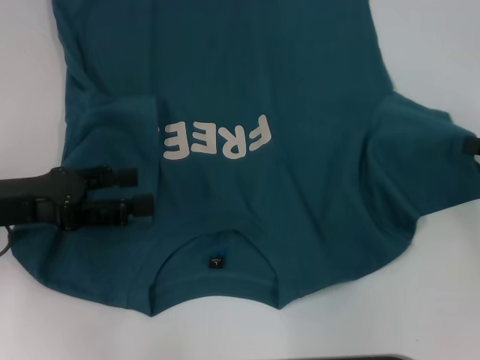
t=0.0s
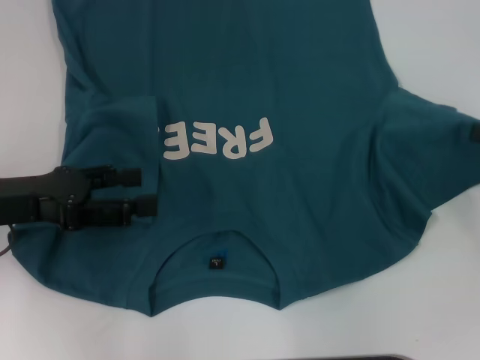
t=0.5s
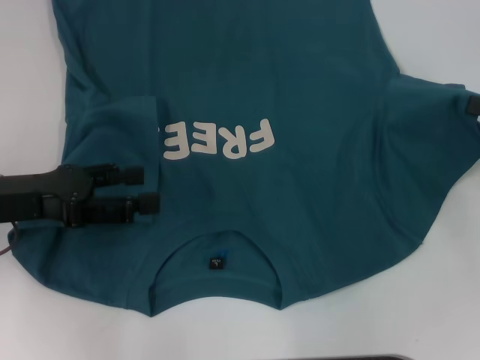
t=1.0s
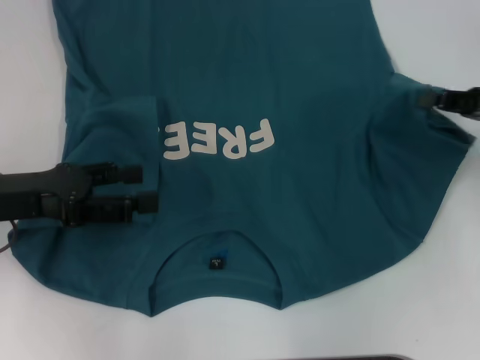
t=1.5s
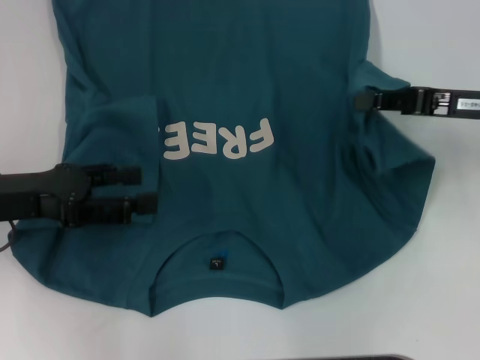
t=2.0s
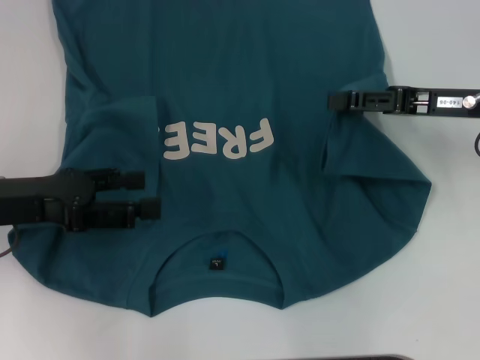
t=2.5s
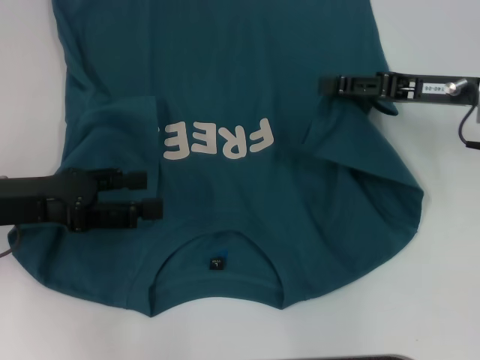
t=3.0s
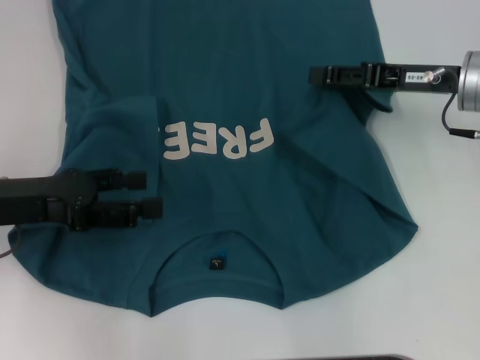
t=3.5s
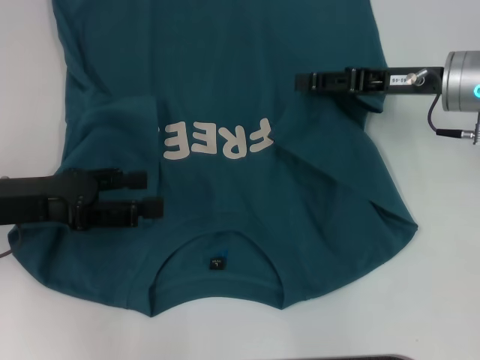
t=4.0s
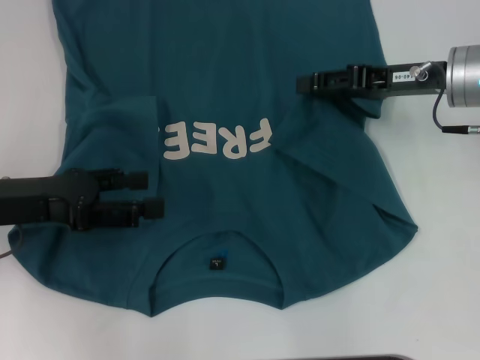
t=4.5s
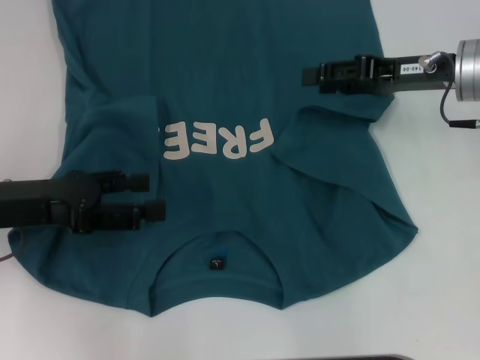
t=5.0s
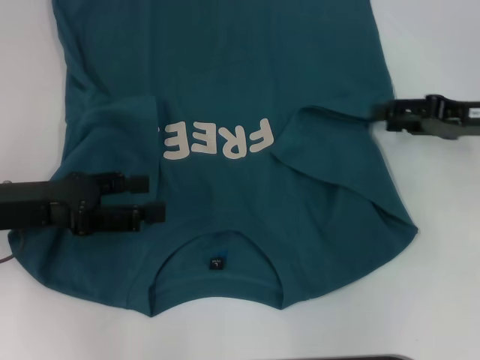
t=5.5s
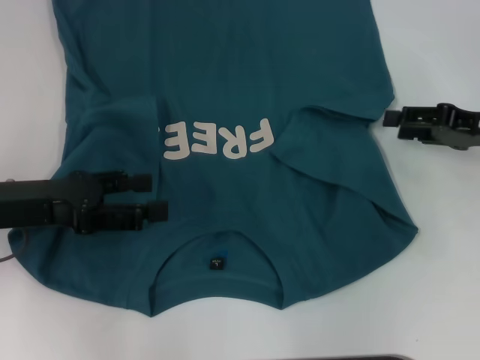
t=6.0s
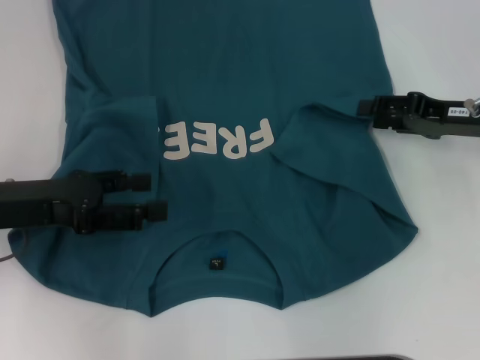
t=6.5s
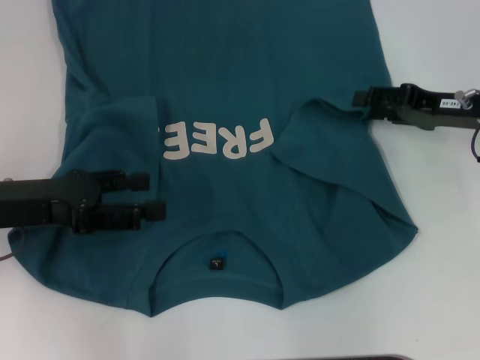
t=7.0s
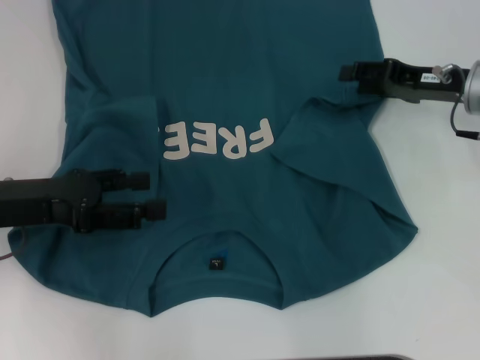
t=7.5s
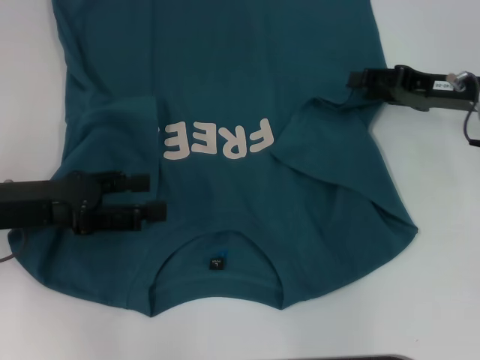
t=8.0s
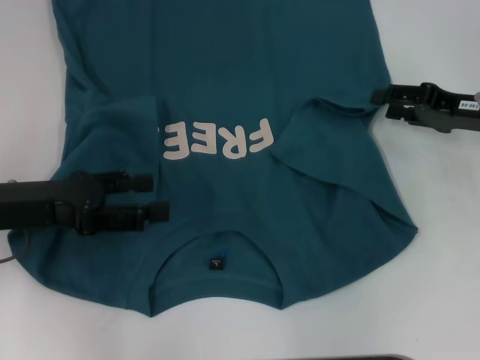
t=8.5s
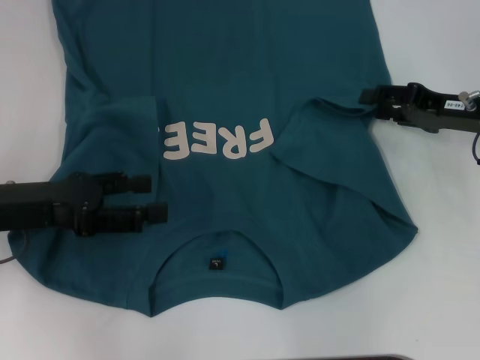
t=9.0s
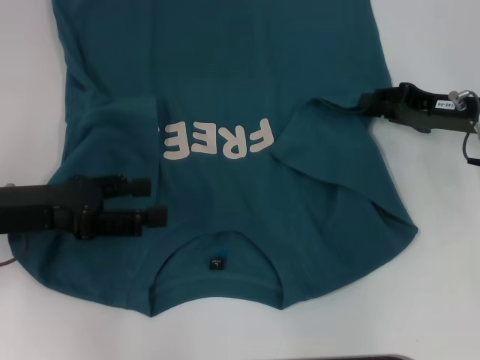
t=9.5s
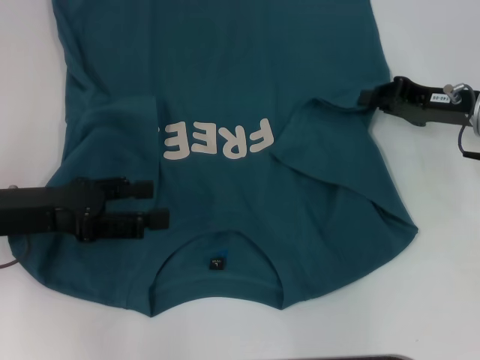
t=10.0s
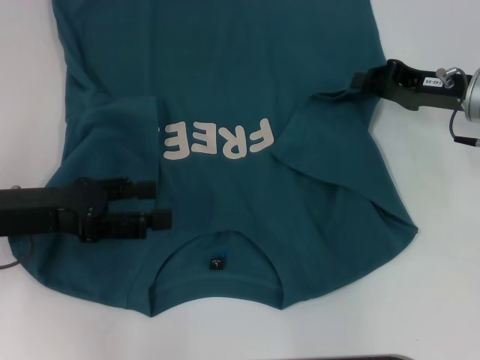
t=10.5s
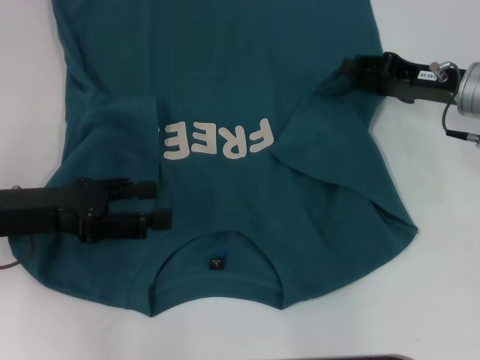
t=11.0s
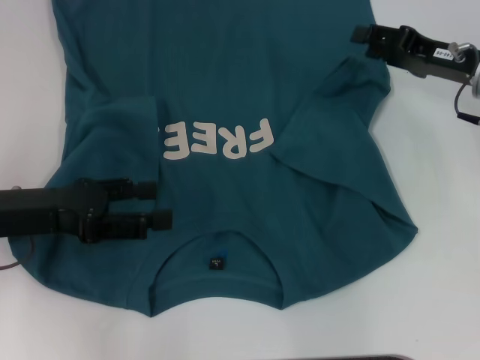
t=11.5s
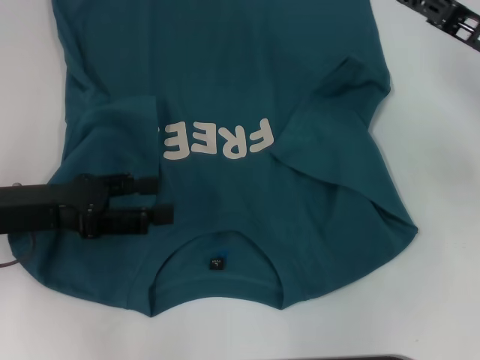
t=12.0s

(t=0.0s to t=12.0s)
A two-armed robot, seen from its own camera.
Step, t=0.0s - t=11.5s: Fold the bottom right sleeve to the right.
t=0.0s - t=2.0s: The right gripper travels to the left and forward by roughly 10 cm.
t=2.0s - t=4.0s: The right gripper moves about 5 cm, and opens.
t=4.0s - t=6.0s: The right gripper travels to the right by about 10 cm.
t=6.0s - t=8.0s: The right gripper moves about 5 cm.
t=8.0s - t=10.0s: The right gripper closes up.
t=10.0s - t=12.0s: The right gripper opens up.

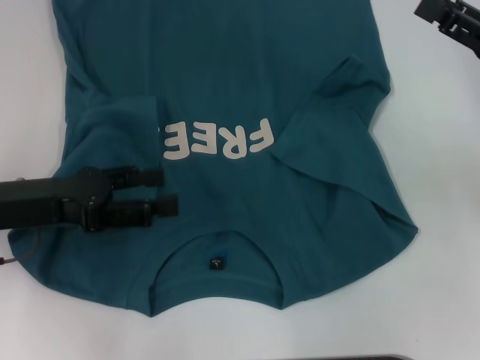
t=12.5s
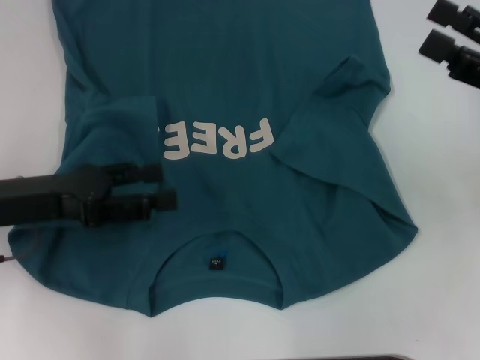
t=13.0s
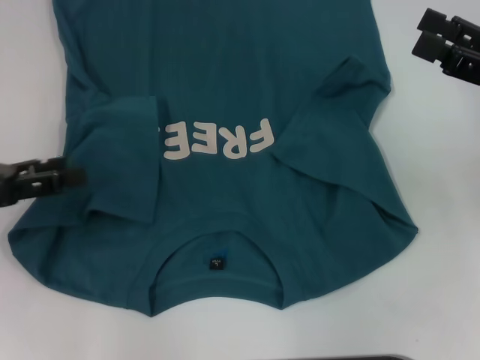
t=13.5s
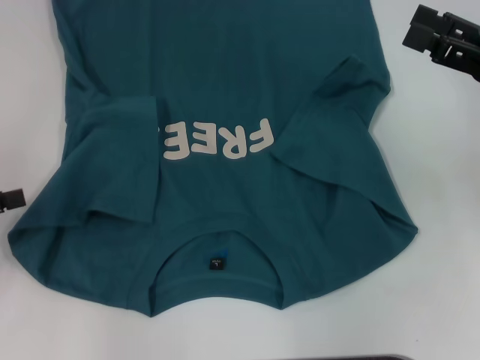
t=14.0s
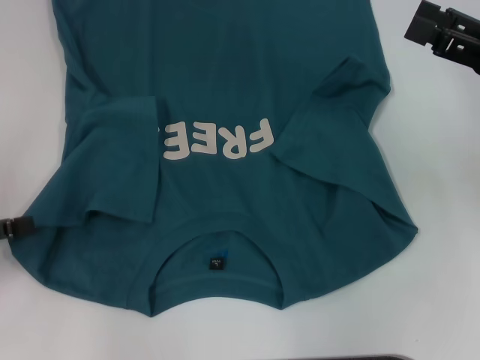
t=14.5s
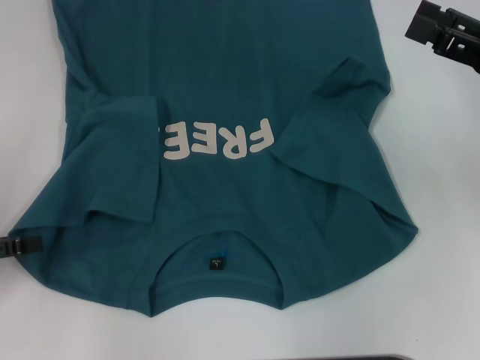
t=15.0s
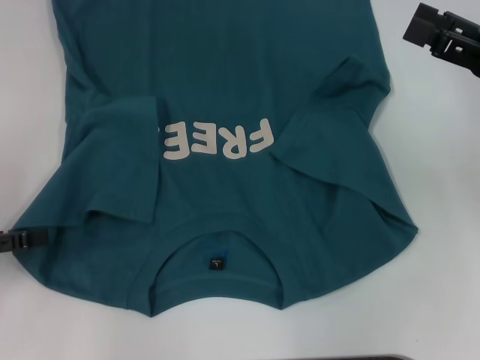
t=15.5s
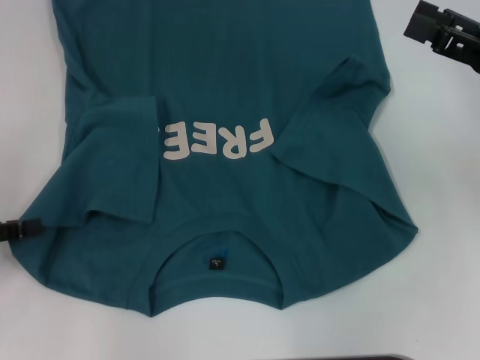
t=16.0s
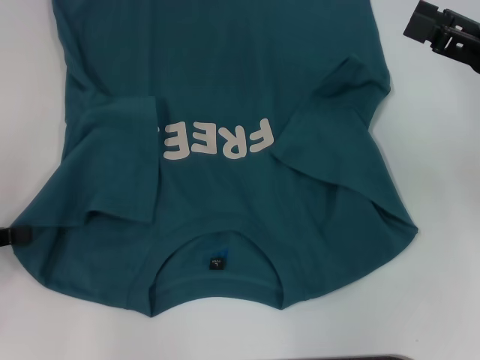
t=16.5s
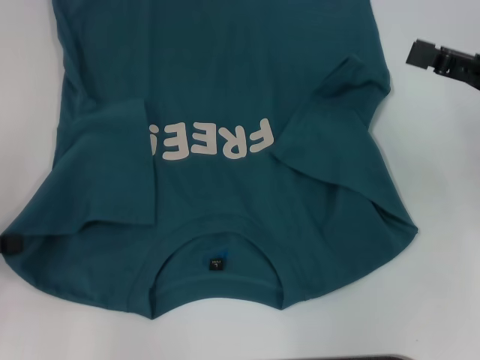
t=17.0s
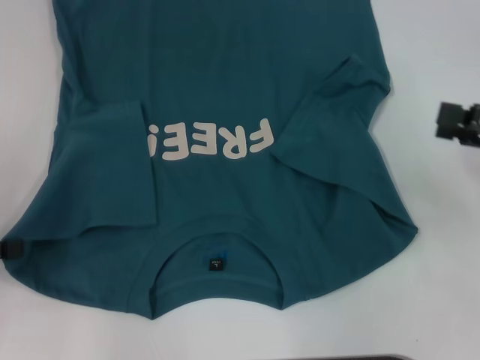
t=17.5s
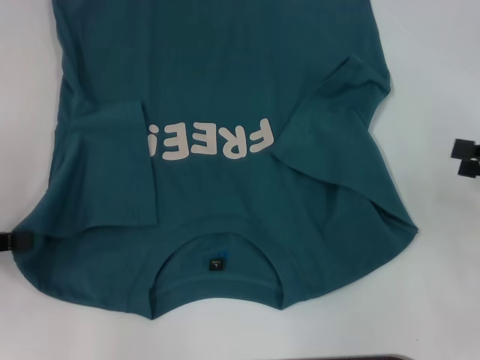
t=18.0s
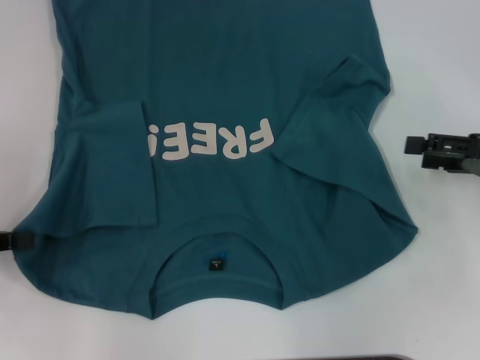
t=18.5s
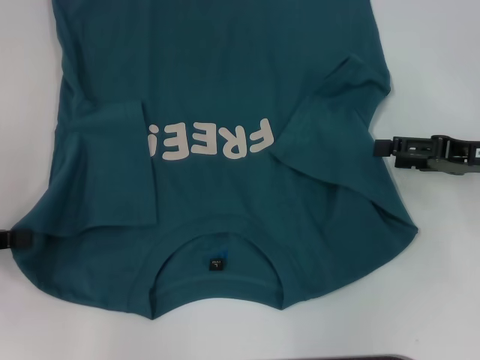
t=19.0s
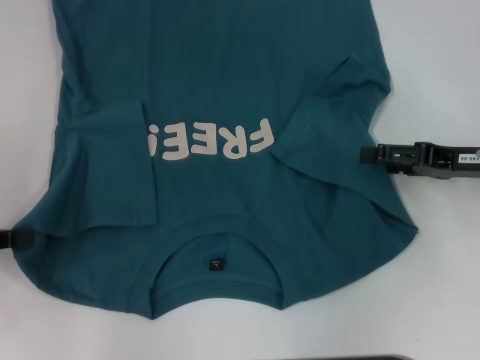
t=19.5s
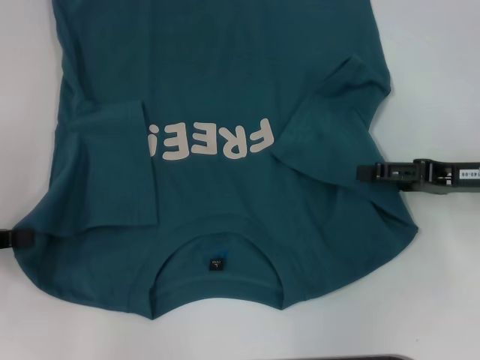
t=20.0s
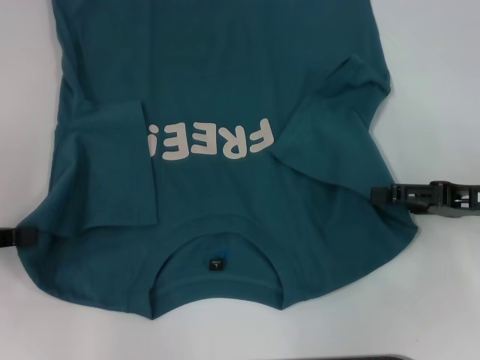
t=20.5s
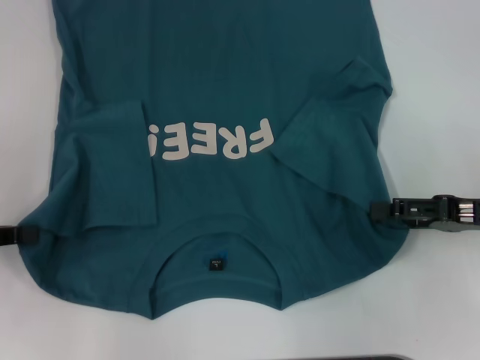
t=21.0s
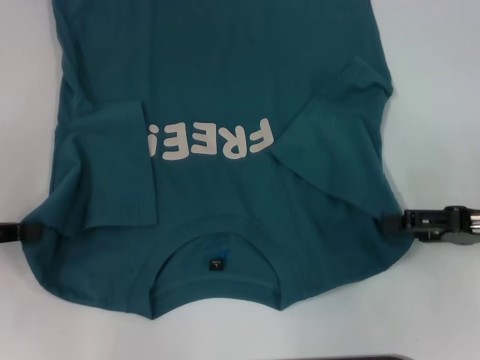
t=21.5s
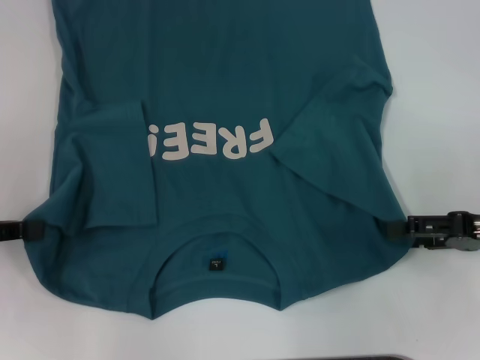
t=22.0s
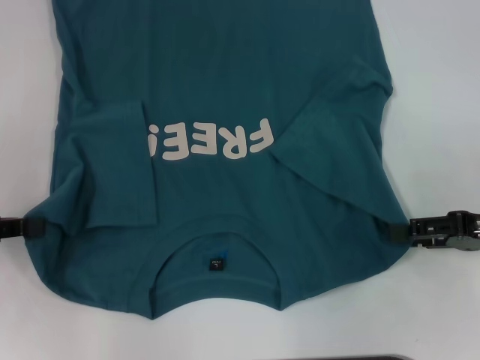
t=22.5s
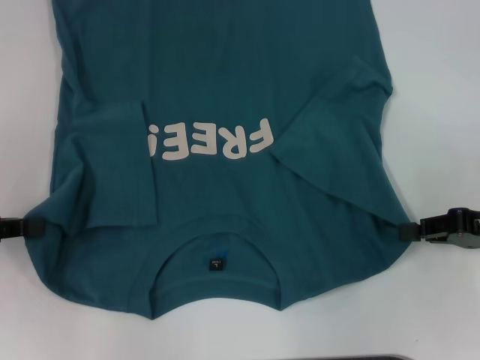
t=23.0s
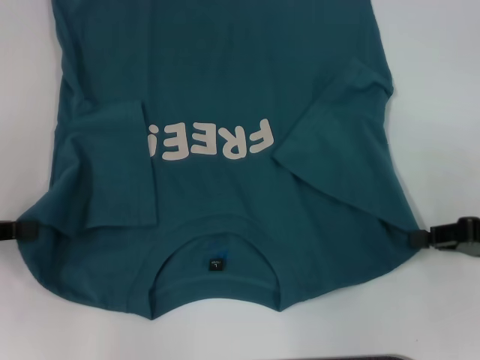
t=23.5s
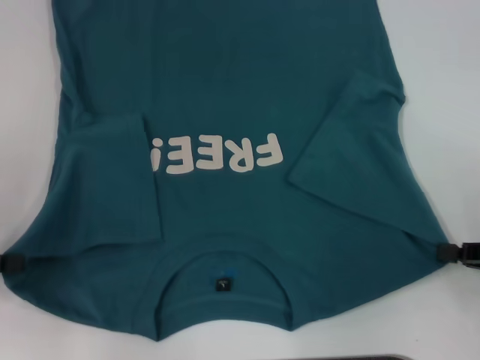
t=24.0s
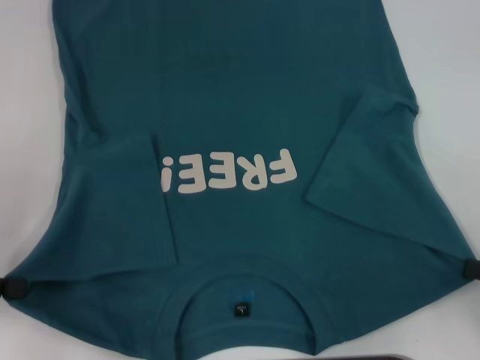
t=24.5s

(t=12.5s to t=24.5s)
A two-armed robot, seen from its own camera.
Step, t=12.5s - t=16.5s: Grab the bottom left corner with your left hand.
Step, t=17.0s - t=23.0s: Grab the bottom right corner with your right hand.
t=12.5s - t=14.5s: The right gripper opens its fingers, while the left gripper travels to the left by roughly 10 cm.
t=18.5s - t=22.5s: The grippers stay close to where they were, moving slightly.
t=22.5s - t=24.5s: The right gripper is displaced backward by approximately 10 cm, and closes.

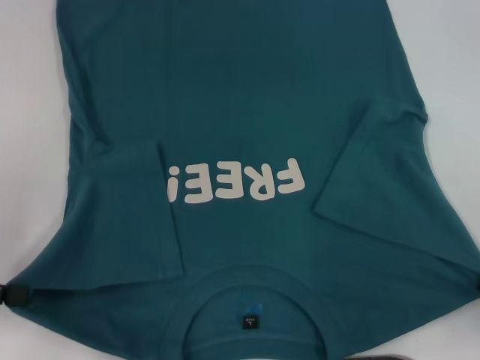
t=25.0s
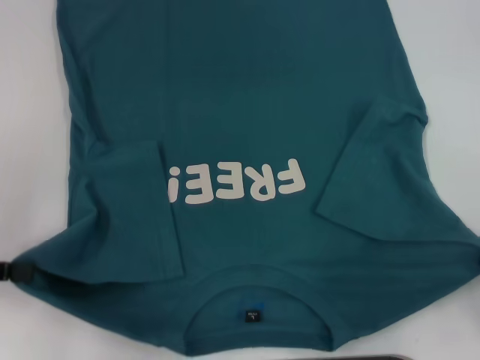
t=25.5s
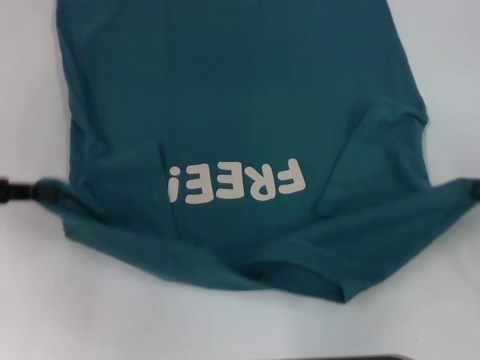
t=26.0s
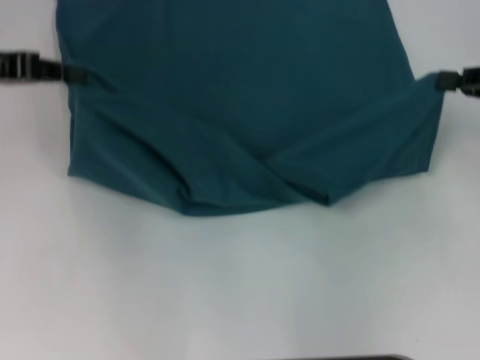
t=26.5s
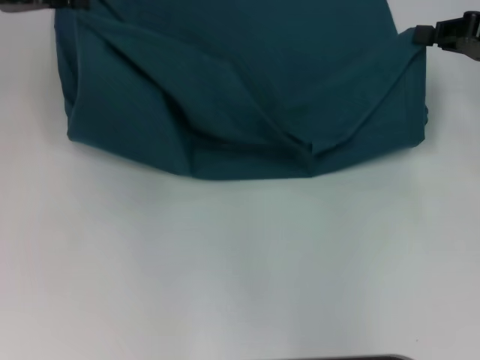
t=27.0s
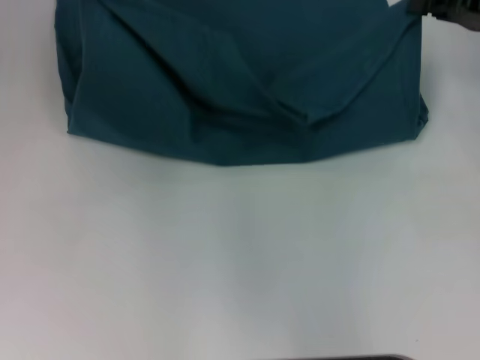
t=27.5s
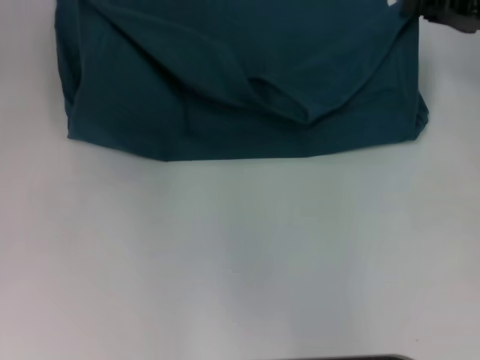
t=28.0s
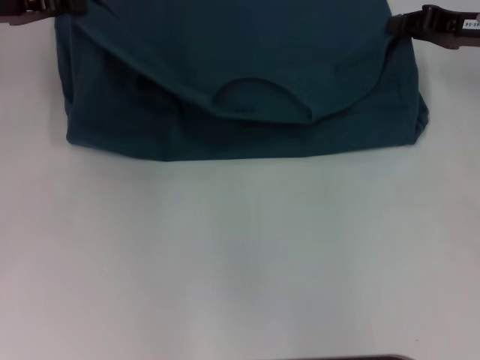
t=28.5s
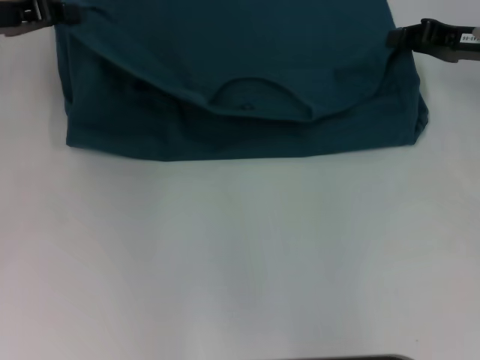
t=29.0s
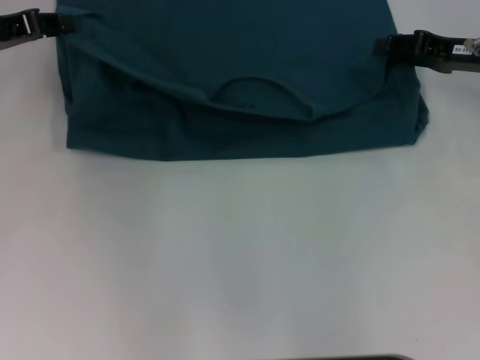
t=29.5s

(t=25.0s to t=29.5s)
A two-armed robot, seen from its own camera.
t=25.0s - t=27.0s: The right gripper moves forward, some 25 cm. The left gripper heads forward, upward and to the right, covering roughly 25 cm.
t=27.0s - t=29.5s: The right gripper ends up approximately 5 cm from where it was. Meanwhile the left gripper heads downward, covering about 5 cm.
